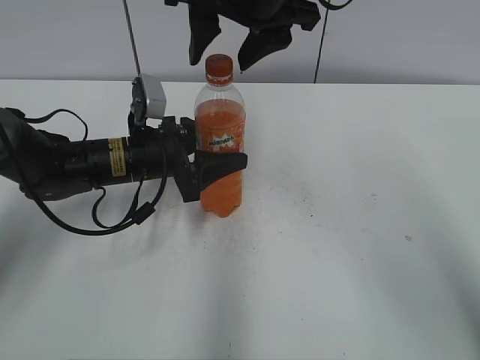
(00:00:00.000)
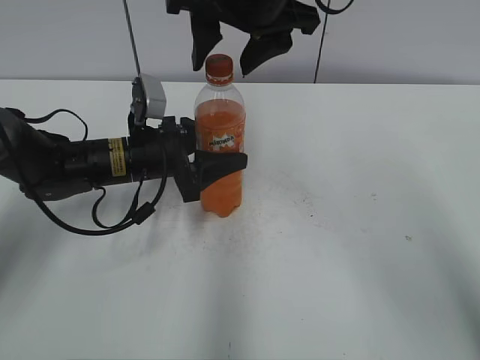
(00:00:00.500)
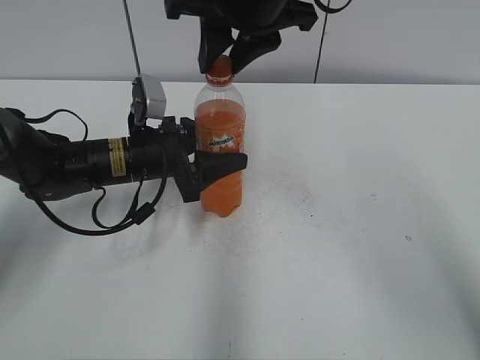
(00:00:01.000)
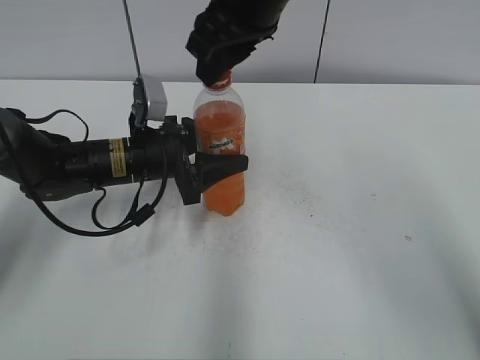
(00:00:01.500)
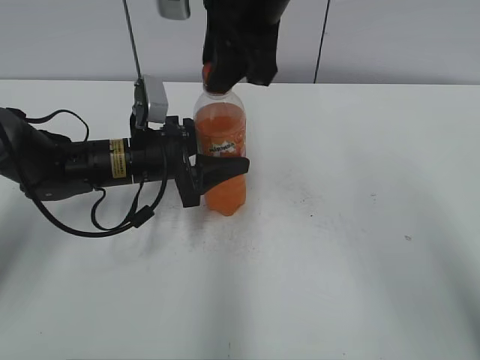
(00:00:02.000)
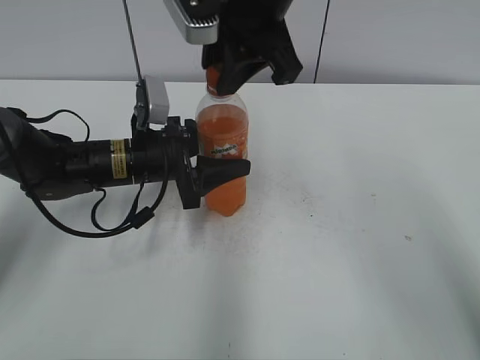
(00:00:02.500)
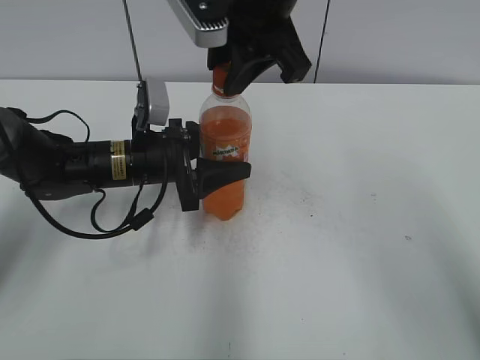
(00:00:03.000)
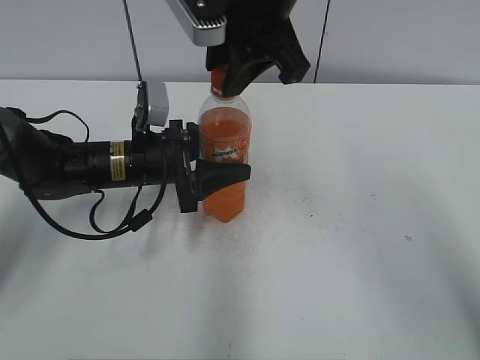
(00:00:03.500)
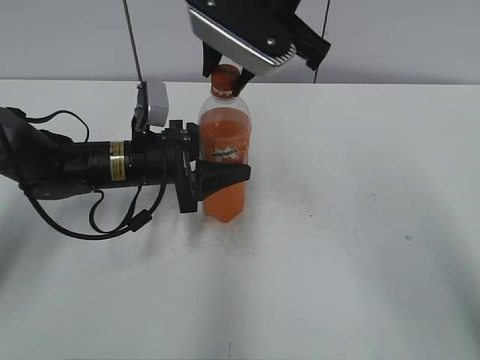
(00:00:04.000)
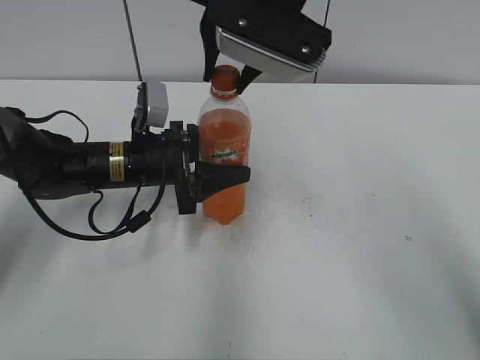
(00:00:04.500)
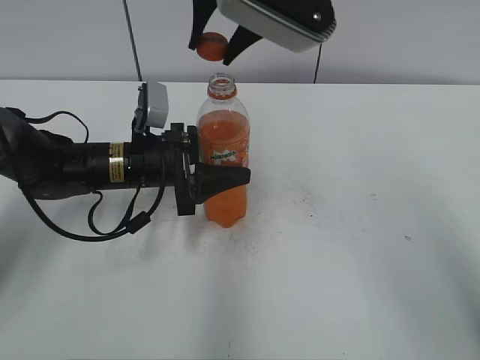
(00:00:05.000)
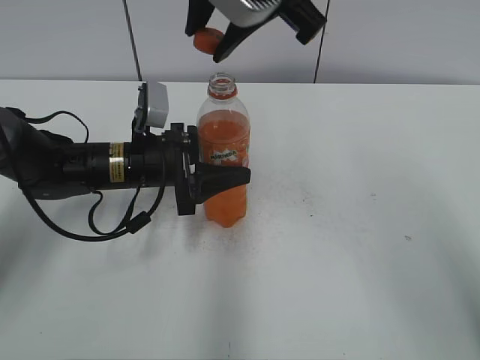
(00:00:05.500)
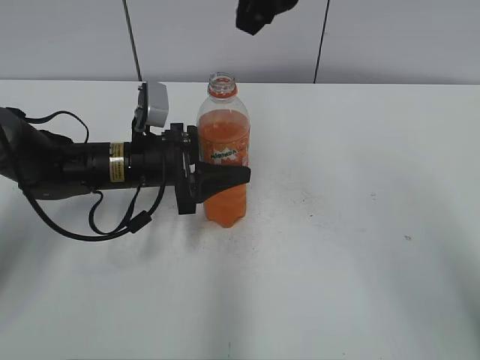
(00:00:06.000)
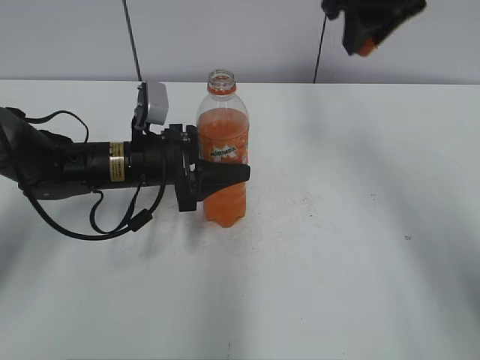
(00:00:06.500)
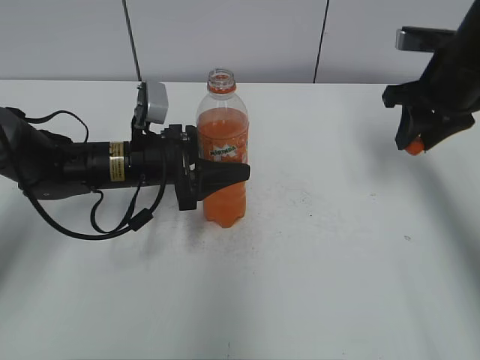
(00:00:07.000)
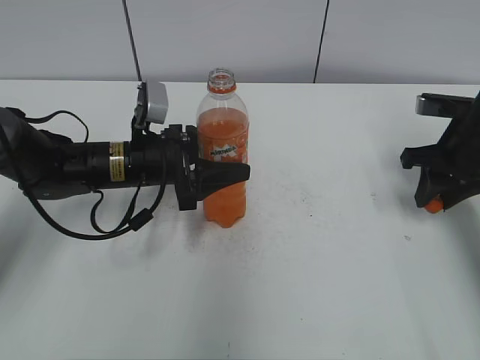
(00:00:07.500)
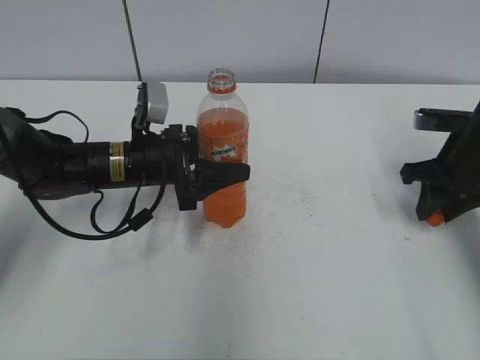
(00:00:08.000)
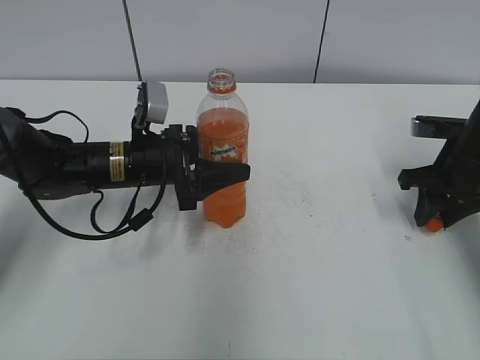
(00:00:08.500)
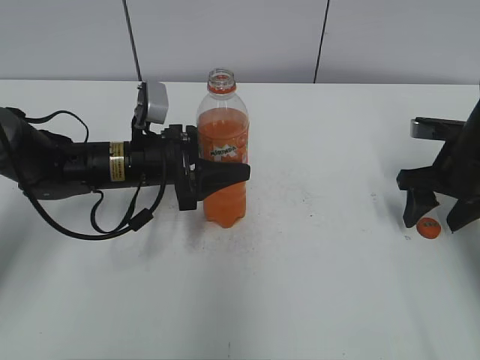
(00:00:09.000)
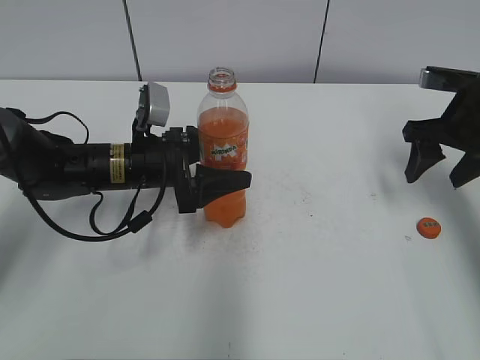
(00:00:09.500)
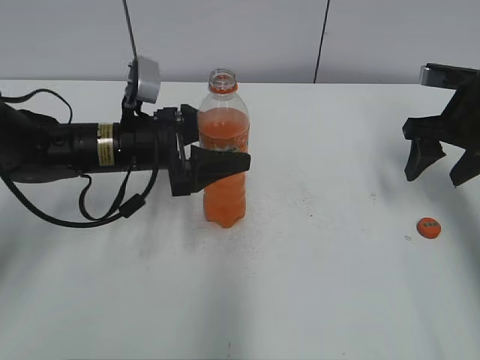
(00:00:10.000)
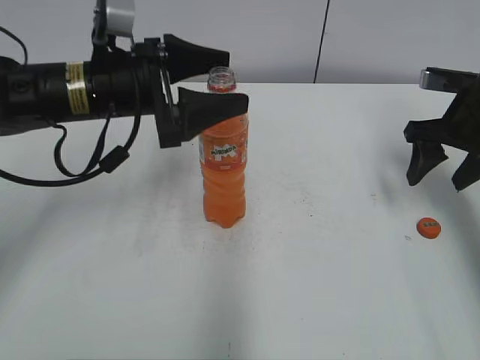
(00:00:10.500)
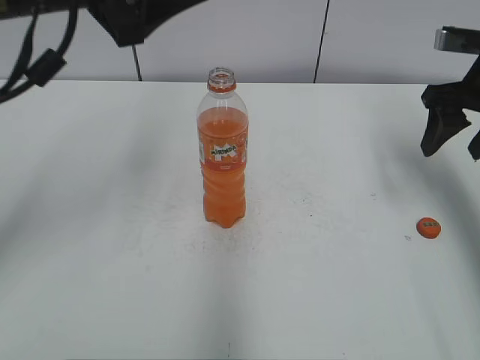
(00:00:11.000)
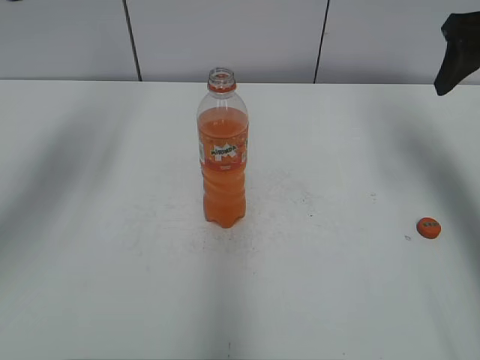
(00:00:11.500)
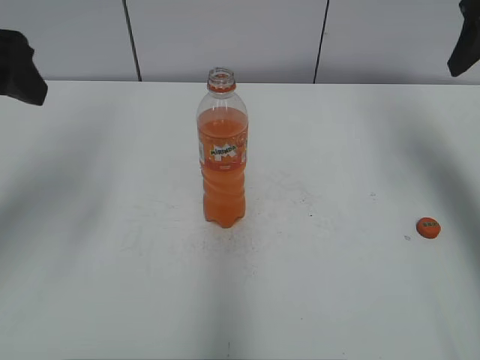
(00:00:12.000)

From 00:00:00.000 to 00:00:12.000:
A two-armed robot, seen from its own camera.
Step, from 00:00:00.000 to 00:00:04.500: Fix the Mirinda on the left.
Step, from 00:00:05.000 to 00:00:08.500: Place the bottle cap on the right.
From 00:00:00.000 to 00:00:02.000: The right gripper closes.
From 00:00:06.000 to 00:00:08.000: The right gripper shifts approximately 35 cm to the right and downward.
From 00:00:08.000 to 00:00:10.000: The left gripper opens; the right gripper opens up.
From 00:00:10.000 to 00:00:12.000: The left gripper shifts some 25 cm upward, to the left and backward, while the right gripper heads upward, covering about 15 cm.

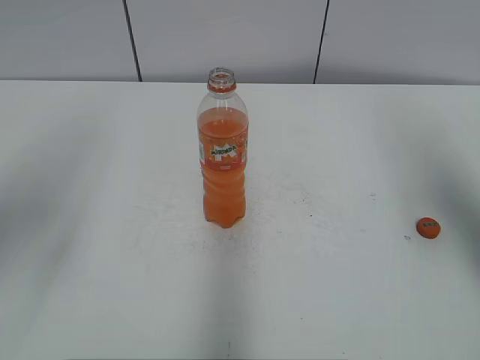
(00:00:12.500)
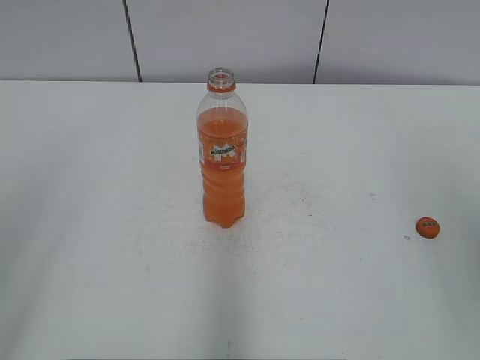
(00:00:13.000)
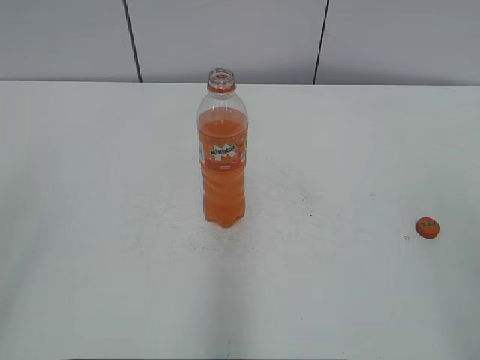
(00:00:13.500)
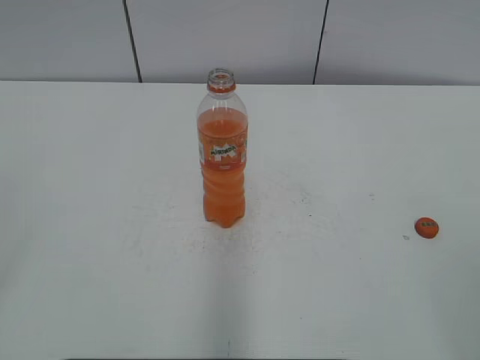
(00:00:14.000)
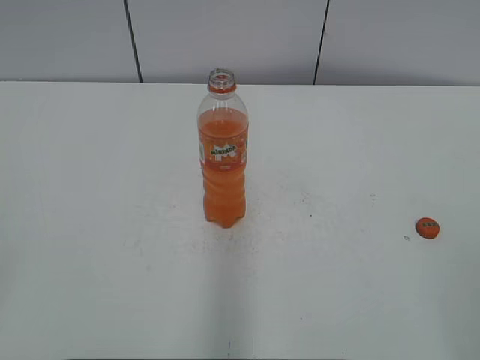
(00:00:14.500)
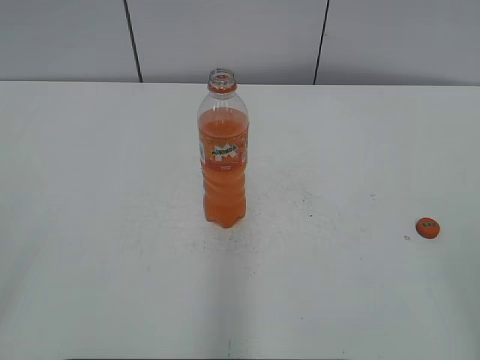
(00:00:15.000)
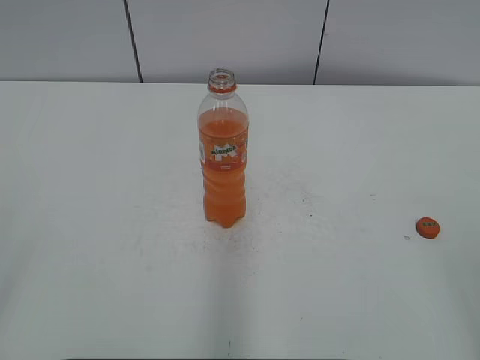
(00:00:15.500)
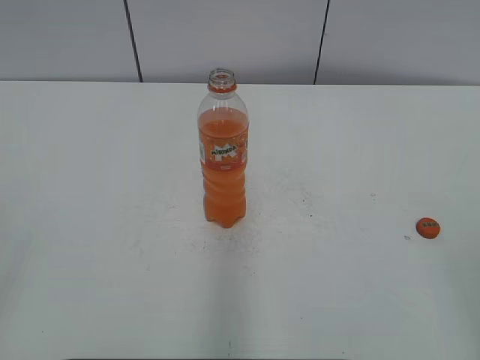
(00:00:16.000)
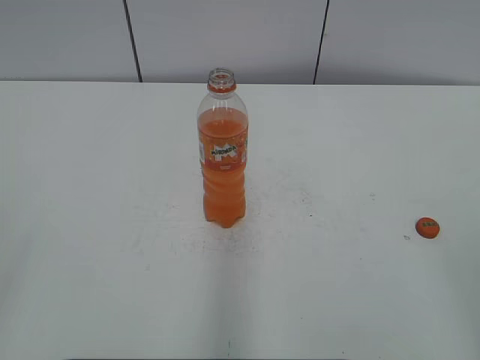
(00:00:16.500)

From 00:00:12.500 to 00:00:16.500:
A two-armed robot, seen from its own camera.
From 00:00:12.500 to 00:00:14.500: The two grippers go roughly 25 cm backward.
